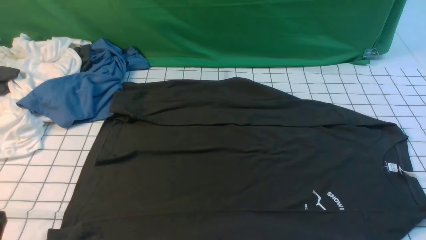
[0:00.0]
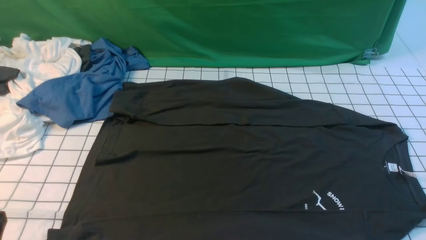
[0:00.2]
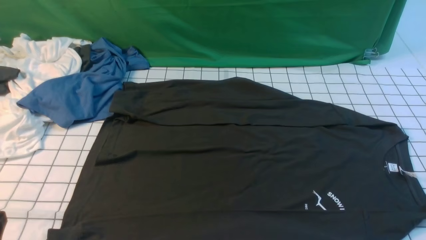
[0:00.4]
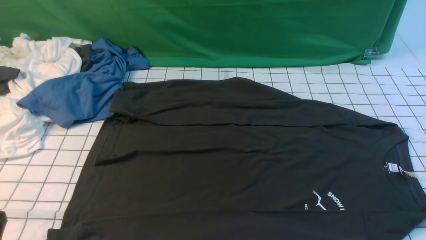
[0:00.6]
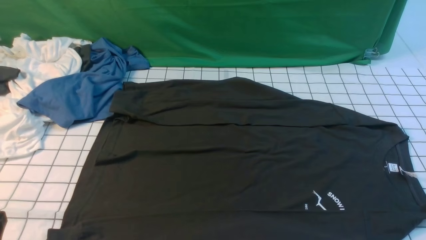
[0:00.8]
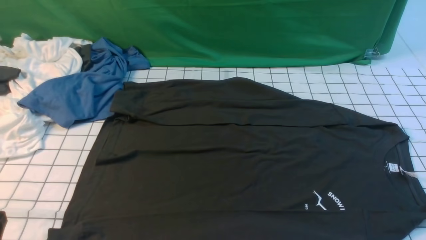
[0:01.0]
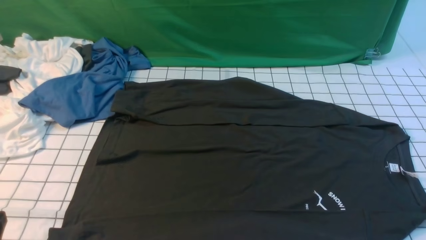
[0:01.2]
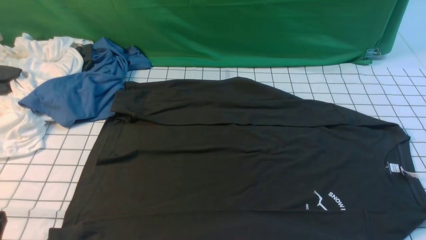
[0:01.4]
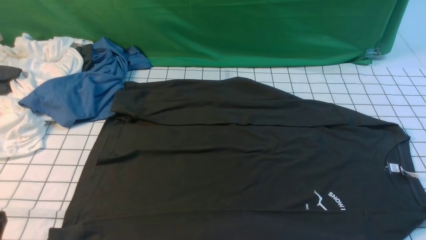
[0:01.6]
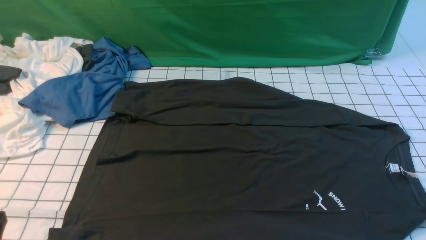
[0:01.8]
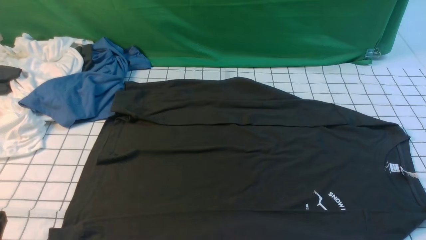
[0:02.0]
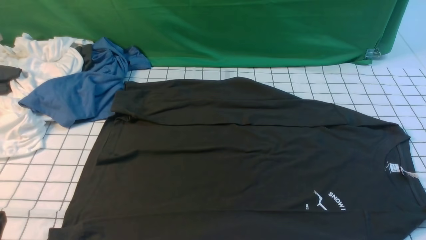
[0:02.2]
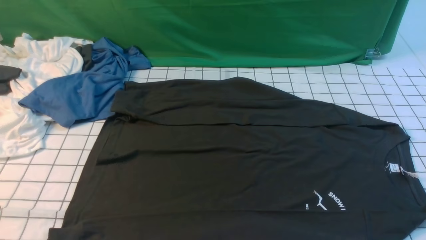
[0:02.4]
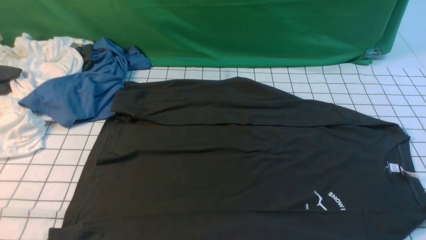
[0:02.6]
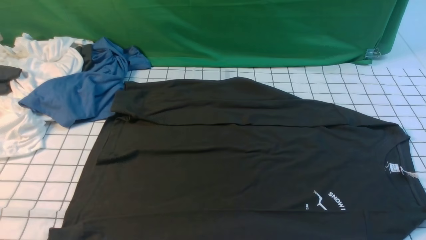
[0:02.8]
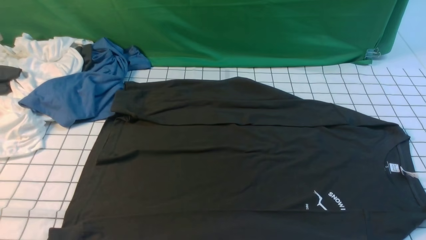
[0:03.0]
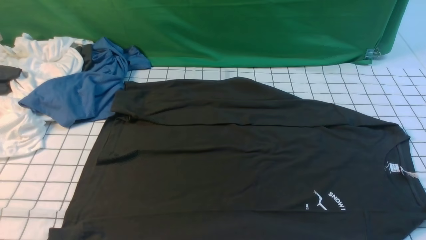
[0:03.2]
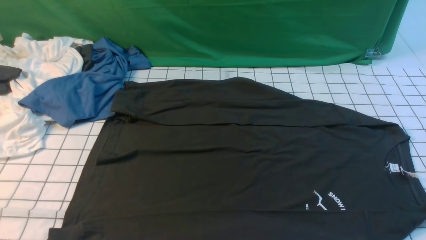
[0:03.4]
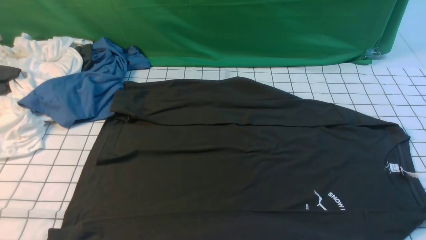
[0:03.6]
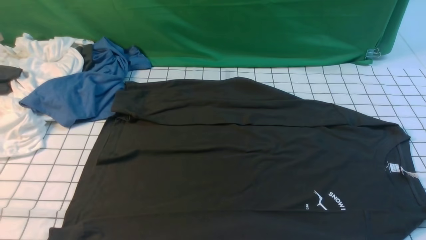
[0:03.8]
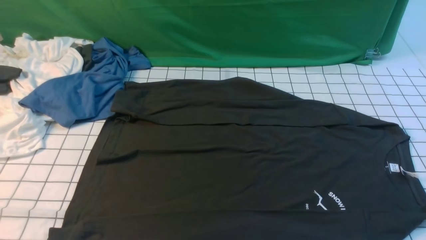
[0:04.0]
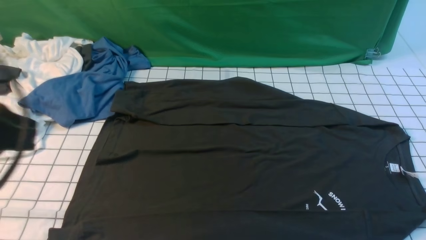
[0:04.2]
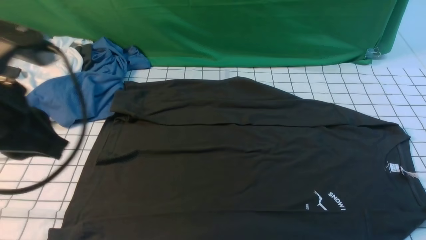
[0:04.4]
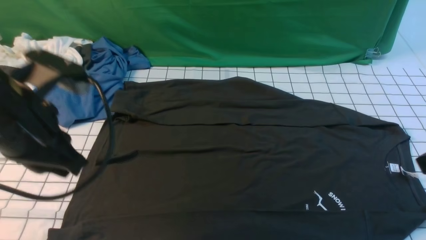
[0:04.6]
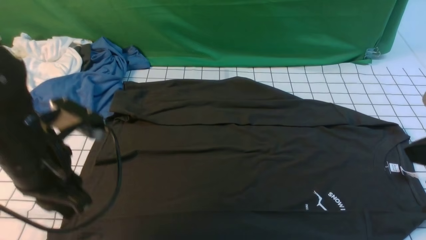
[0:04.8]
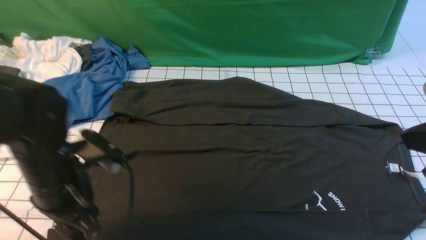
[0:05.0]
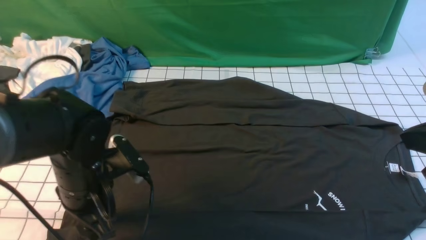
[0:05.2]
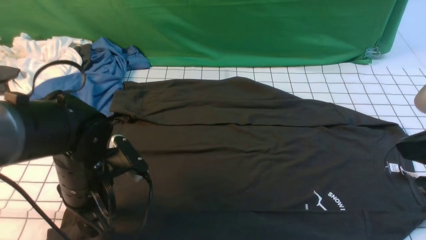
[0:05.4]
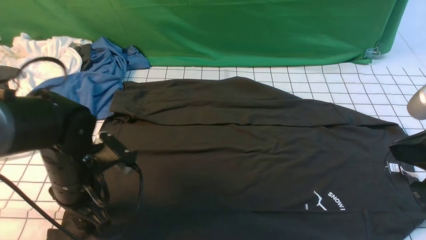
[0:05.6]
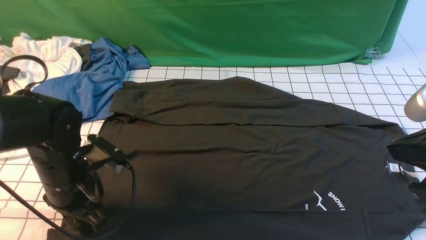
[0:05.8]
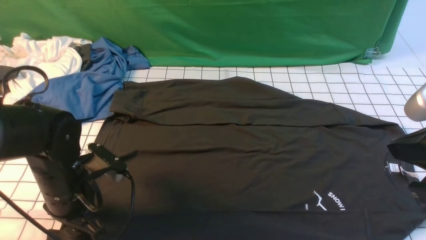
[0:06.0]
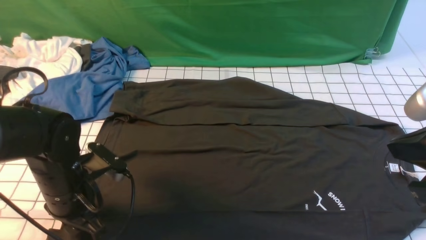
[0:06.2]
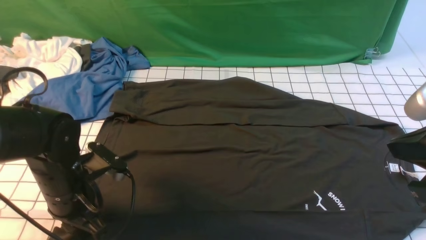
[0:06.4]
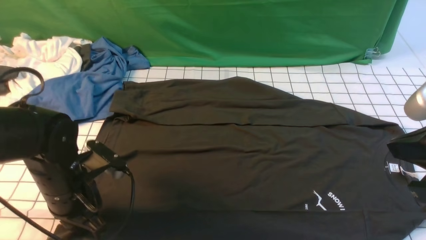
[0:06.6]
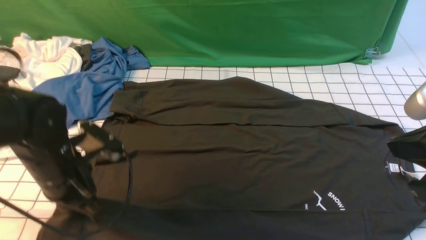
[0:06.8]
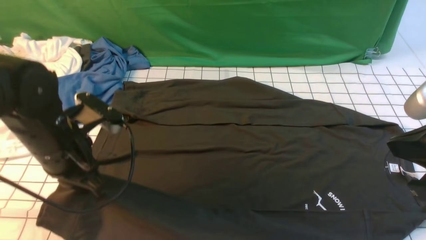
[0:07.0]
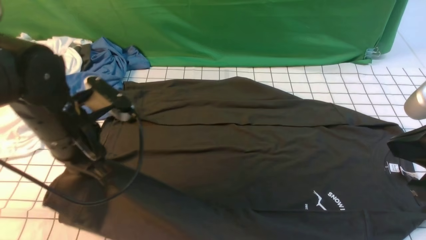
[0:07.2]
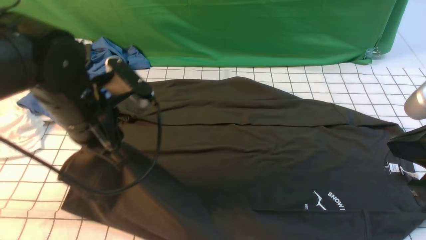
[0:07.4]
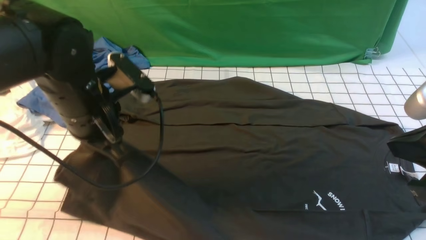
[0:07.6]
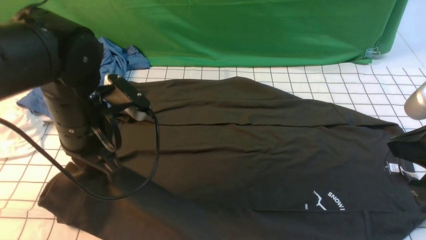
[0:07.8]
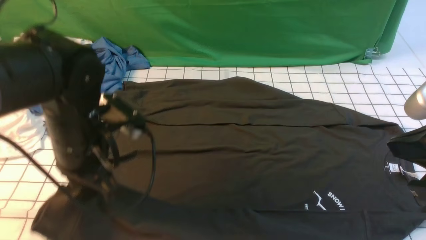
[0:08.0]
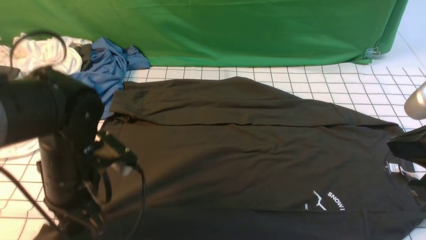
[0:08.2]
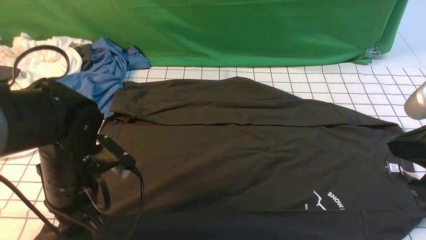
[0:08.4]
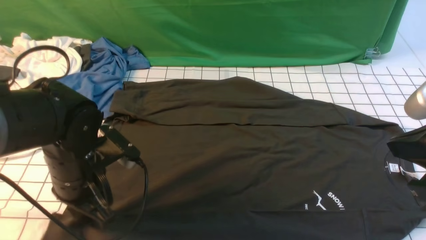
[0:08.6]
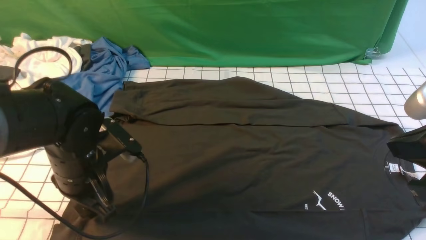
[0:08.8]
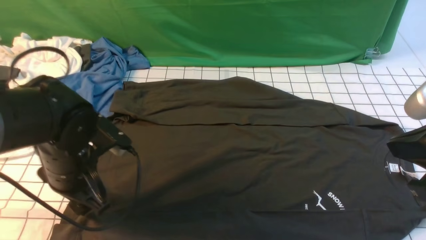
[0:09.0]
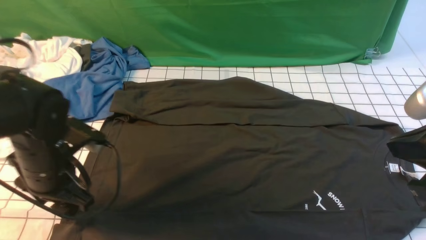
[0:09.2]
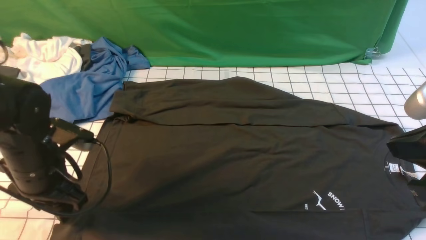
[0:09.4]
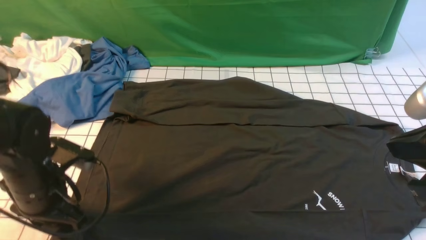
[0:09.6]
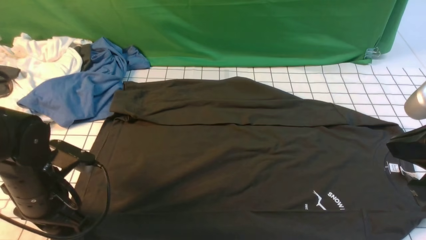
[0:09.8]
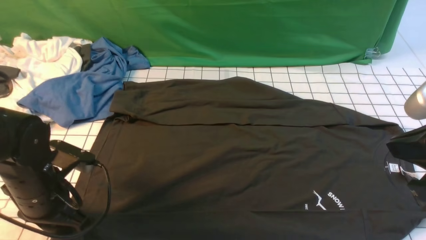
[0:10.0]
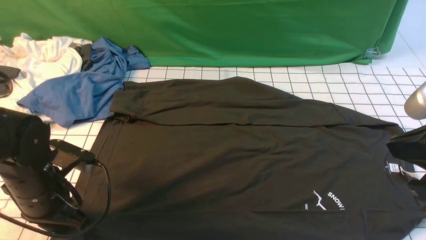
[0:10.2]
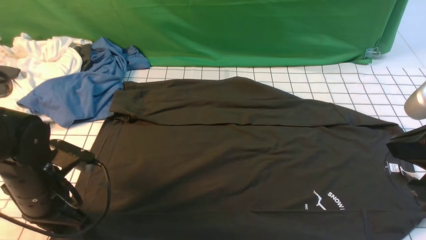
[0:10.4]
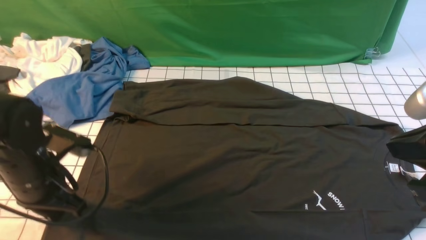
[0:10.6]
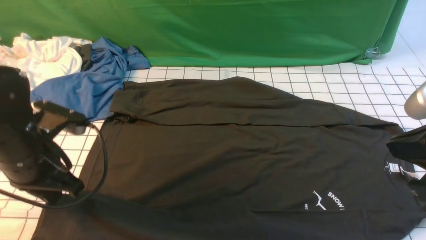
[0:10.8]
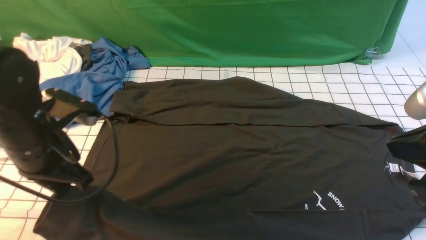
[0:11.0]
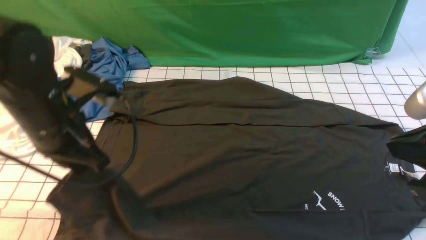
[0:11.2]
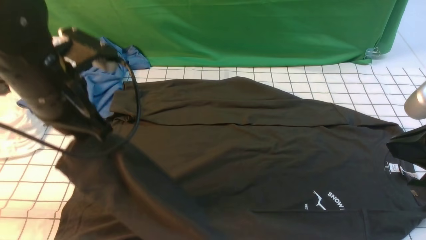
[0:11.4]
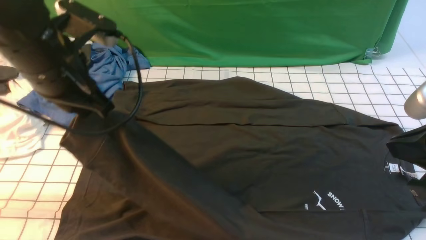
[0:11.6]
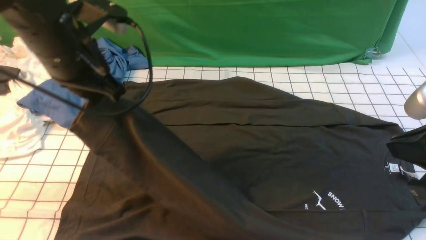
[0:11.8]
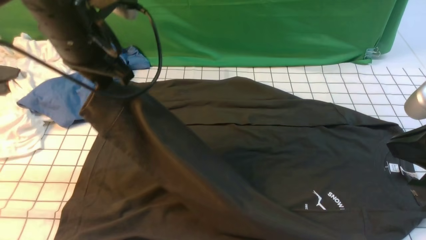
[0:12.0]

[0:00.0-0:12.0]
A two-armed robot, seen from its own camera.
Step, 0:00.0 to 0:10.8: use the left arm to clamp the cuff closest to it.
0:00.0 to 0:01.6: Both grippers stay about where they are.
0:03.0 to 0:04.4: The left gripper moves forward and upward, about 20 cm.
0:04.4 to 0:06.0: The left gripper heads downward, covering roughly 20 cm, and opens up.
0:06.0 to 0:07.6: The left gripper travels upward by about 10 cm, and closes its fingers.
0:07.6 to 0:09.0: The left gripper moves downward, approximately 10 cm, and opens up.
0:09.0 to 0:10.4: The left gripper closes its fingers.
0:10.4 to 0:12.0: The left gripper is displaced upward and forward by some 20 cm.

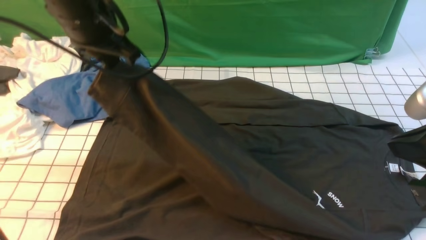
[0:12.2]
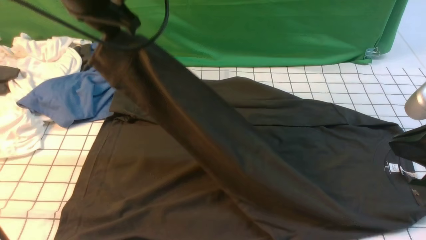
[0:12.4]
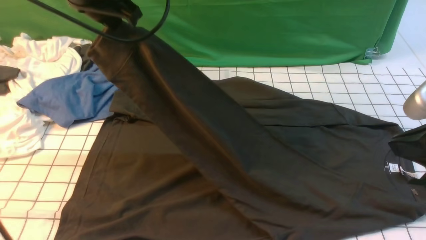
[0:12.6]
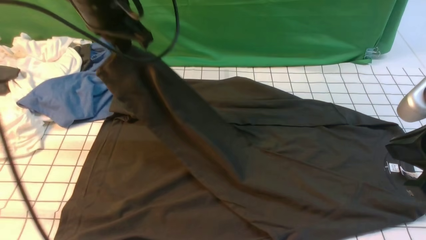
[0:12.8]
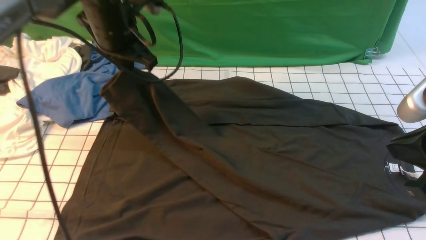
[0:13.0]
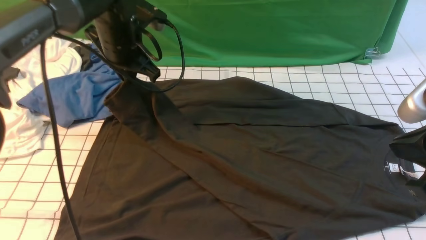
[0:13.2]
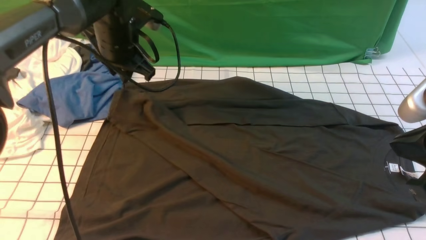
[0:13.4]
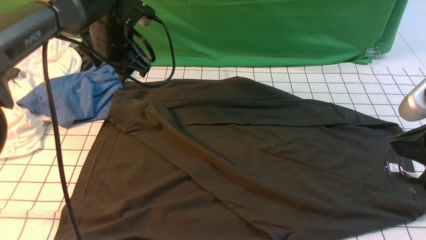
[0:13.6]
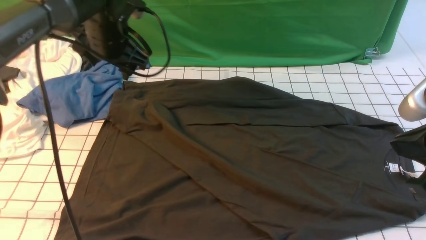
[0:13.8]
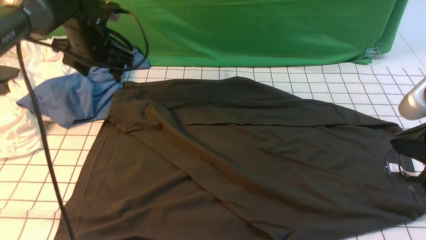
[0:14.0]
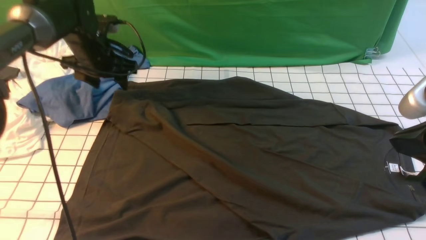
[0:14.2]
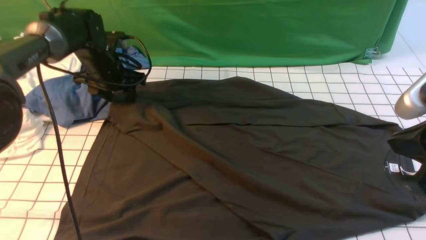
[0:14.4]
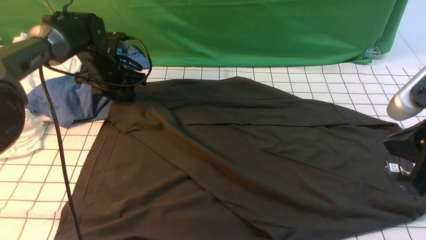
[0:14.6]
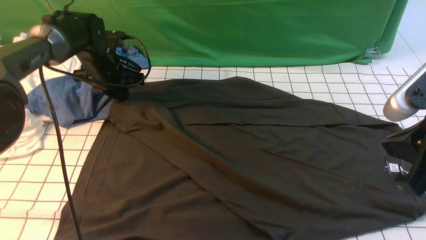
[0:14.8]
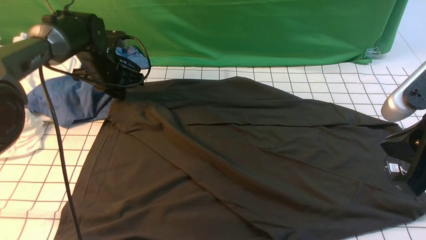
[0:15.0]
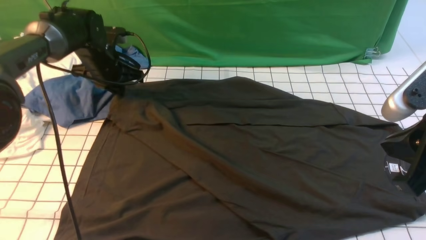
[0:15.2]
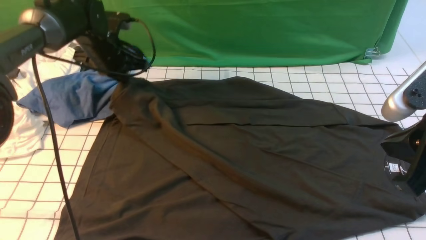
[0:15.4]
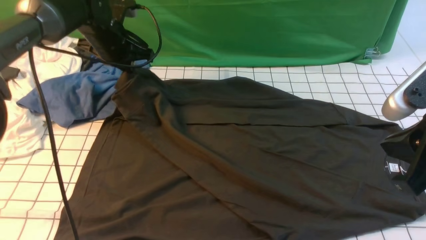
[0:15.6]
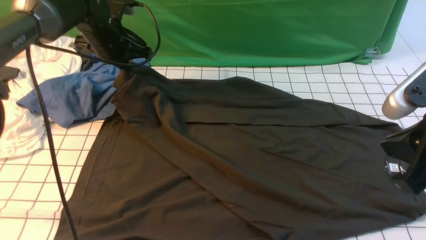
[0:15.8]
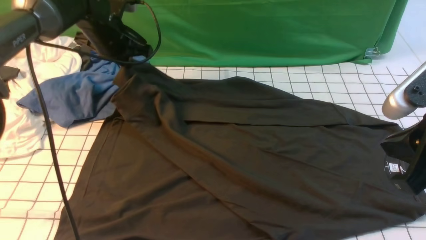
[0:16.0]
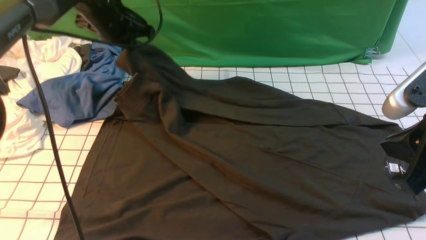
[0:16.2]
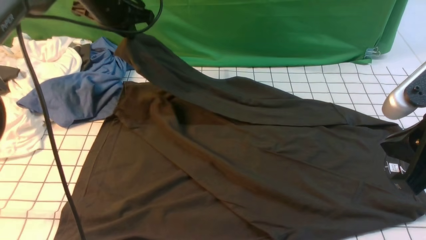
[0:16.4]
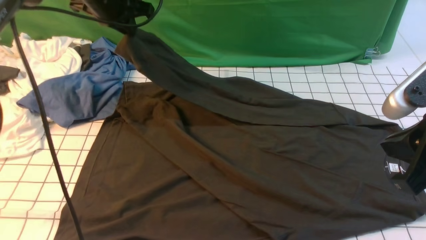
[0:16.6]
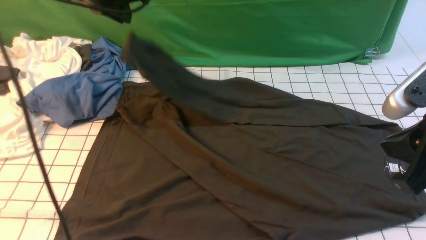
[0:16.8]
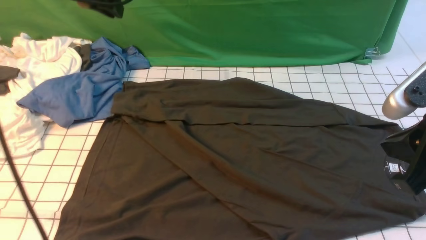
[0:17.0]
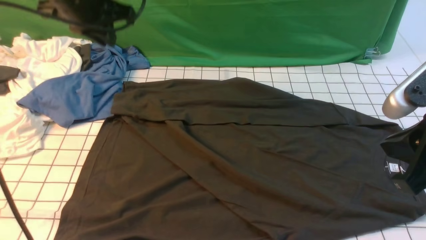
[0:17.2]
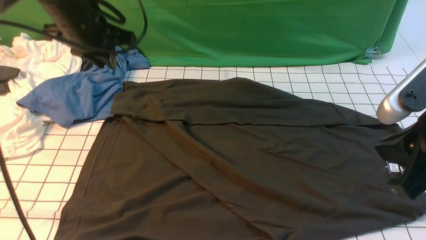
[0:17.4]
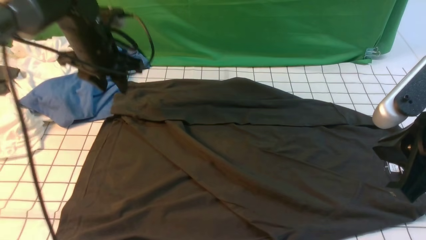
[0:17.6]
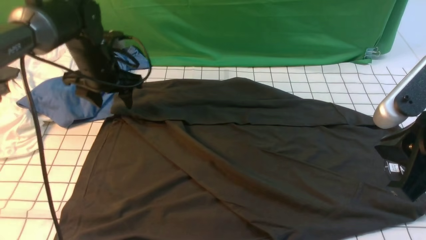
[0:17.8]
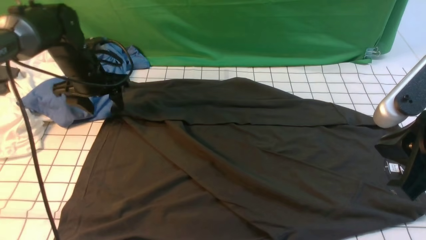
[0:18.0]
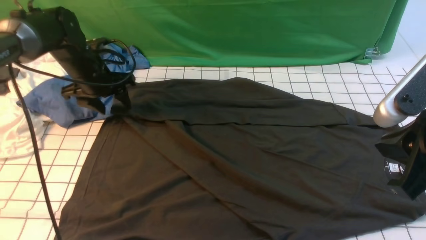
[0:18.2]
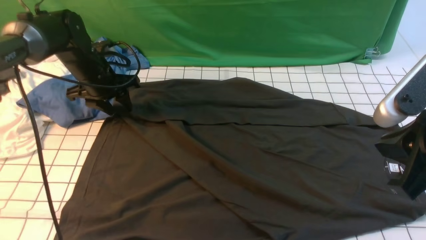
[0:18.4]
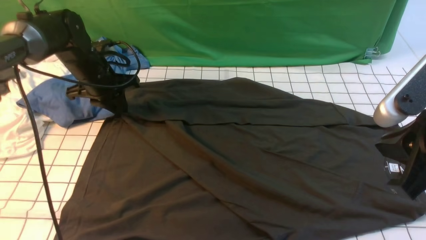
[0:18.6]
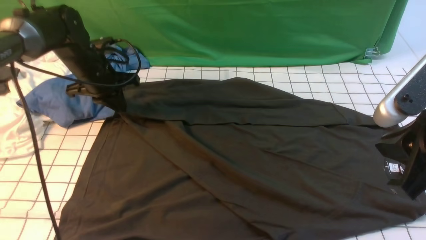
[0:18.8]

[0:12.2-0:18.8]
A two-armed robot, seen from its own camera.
Step, 0:12.2 to 0:13.6: use the left arm to drag and place the cuff at the centered position on the left edge of the fabric.
0:12.2 to 0:13.8: The left gripper is displaced downward and forward by some 15 cm, and opens its fingers.
0:13.8 to 0:15.4: The left gripper closes.
0:15.4 to 0:17.2: The left gripper is displaced upward and backward by roughly 15 cm.
0:17.2 to 0:18.8: The left gripper heads downward, covering some 15 cm, and opens, then closes once more.
